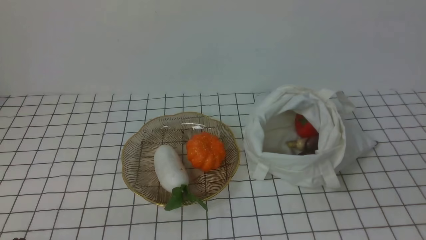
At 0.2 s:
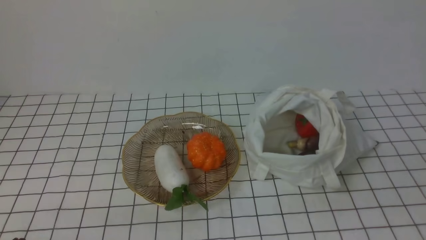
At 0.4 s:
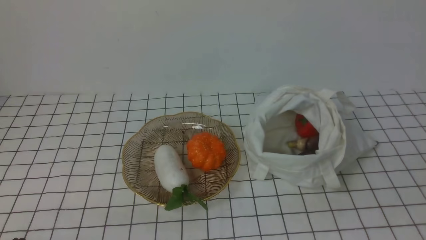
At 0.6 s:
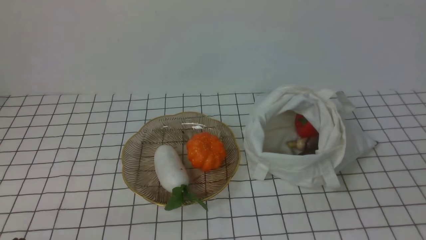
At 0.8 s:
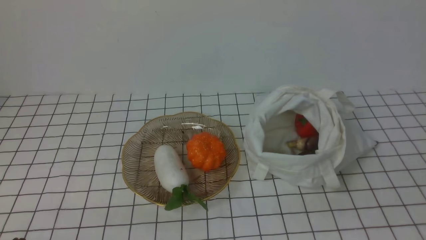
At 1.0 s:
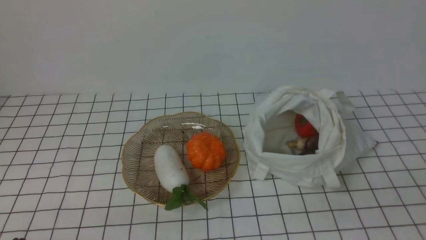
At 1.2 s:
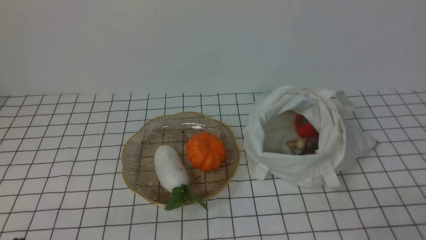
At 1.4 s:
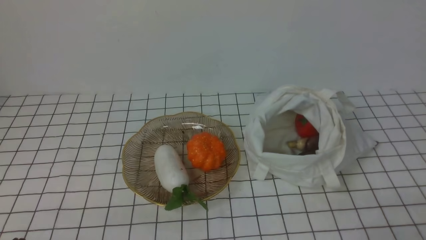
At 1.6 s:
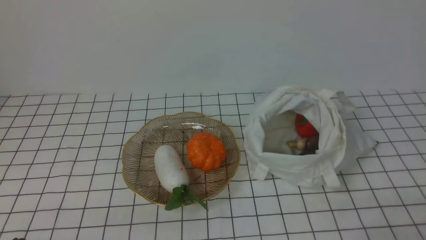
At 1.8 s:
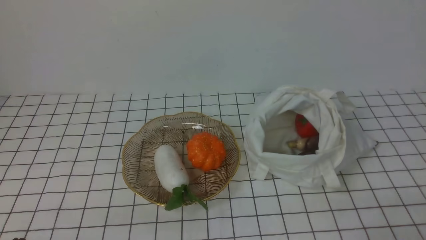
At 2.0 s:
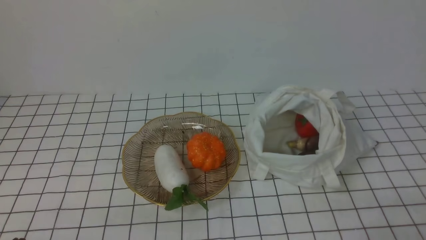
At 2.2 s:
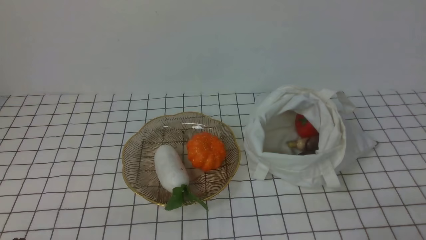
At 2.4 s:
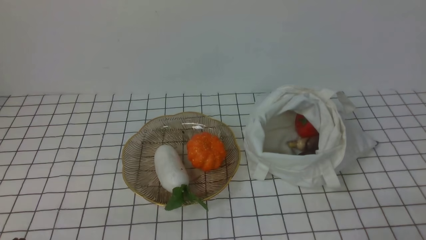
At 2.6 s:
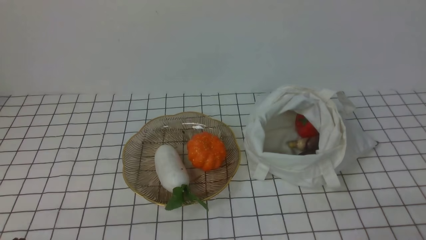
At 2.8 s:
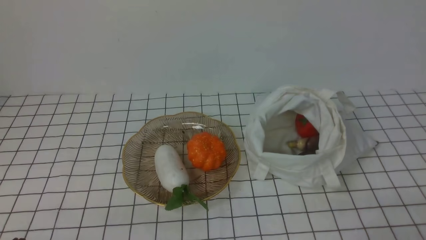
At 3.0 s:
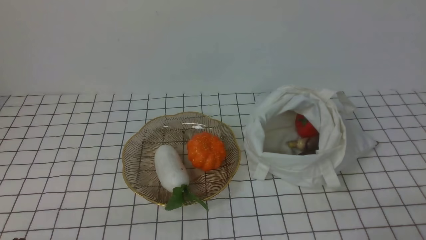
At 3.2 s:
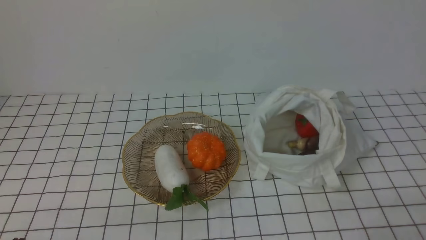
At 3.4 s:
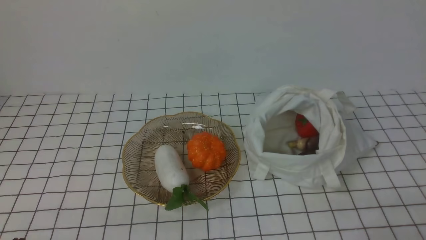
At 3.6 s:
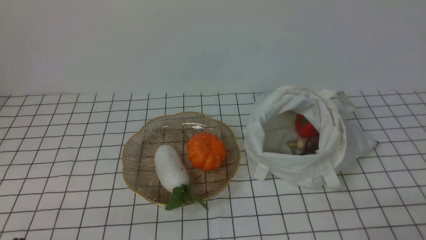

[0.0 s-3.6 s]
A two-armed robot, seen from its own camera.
Task of the whole recording: take vegetables from bag on white checkered tablecloth place on plate.
1.8 to 3.6 s: Both grippers stay about where they are.

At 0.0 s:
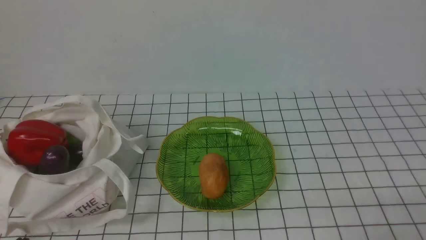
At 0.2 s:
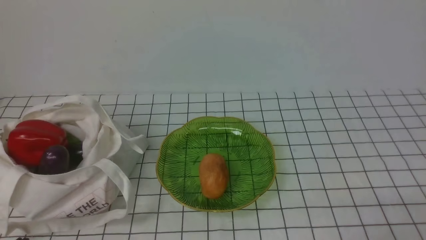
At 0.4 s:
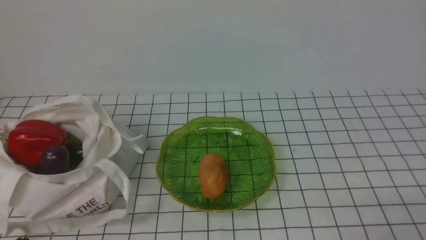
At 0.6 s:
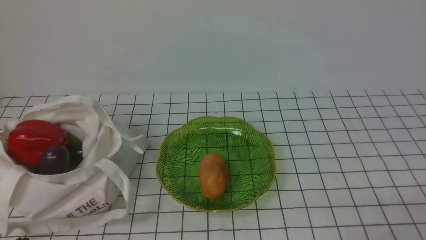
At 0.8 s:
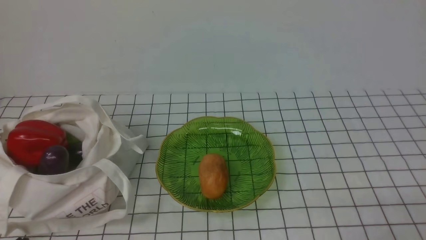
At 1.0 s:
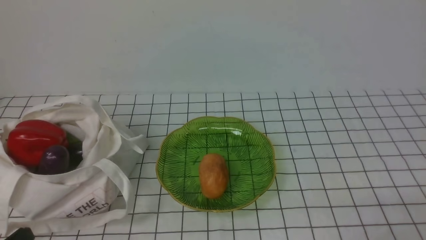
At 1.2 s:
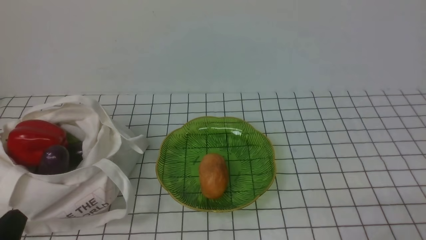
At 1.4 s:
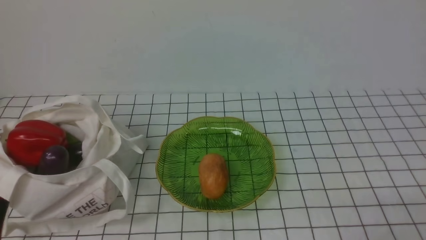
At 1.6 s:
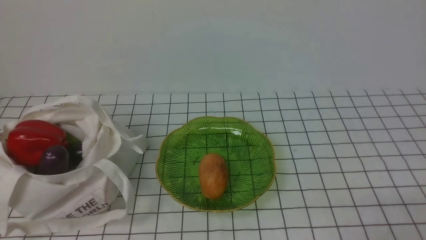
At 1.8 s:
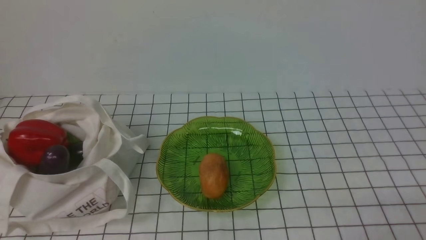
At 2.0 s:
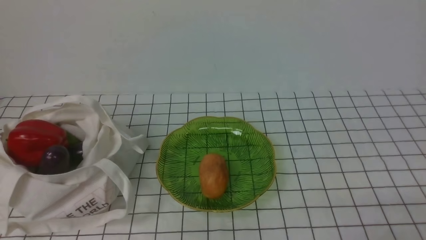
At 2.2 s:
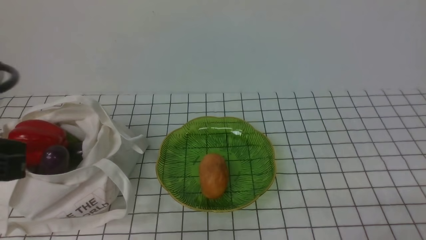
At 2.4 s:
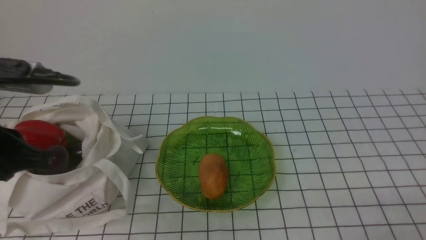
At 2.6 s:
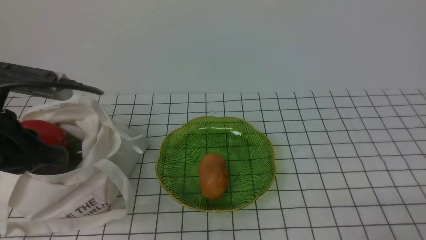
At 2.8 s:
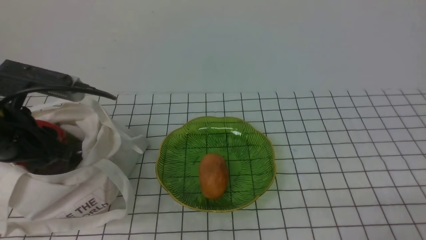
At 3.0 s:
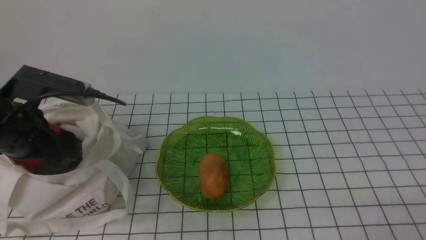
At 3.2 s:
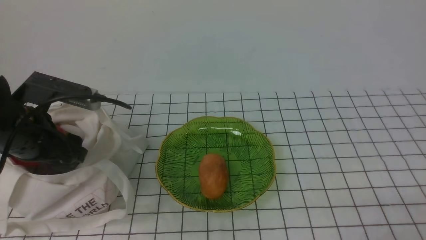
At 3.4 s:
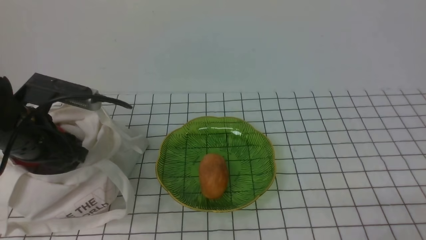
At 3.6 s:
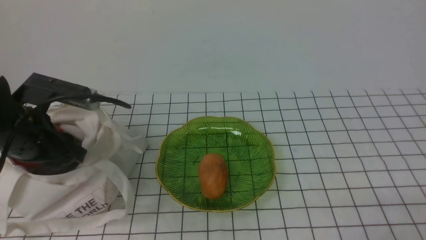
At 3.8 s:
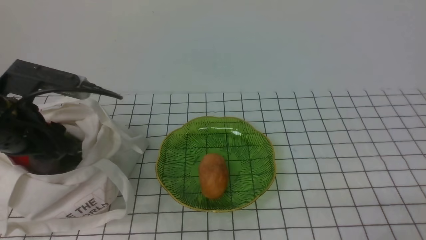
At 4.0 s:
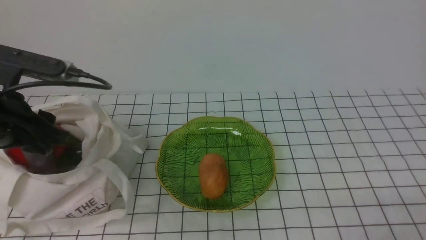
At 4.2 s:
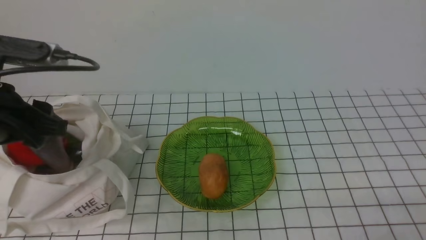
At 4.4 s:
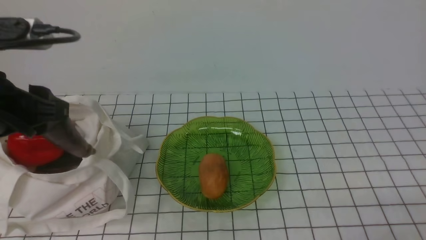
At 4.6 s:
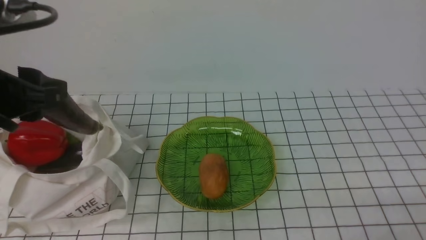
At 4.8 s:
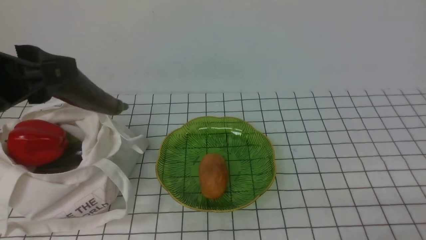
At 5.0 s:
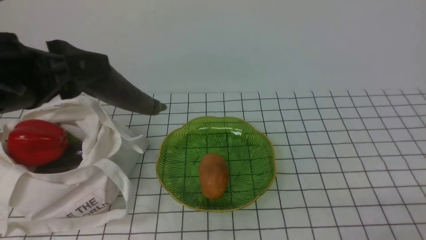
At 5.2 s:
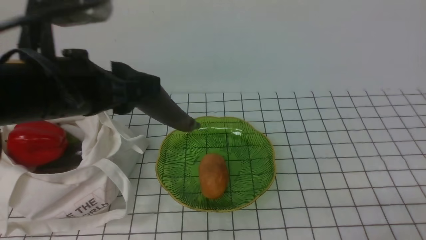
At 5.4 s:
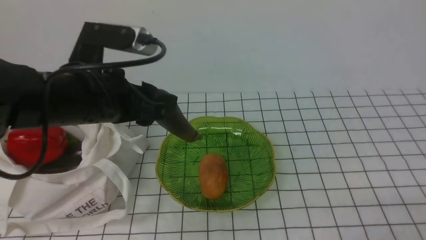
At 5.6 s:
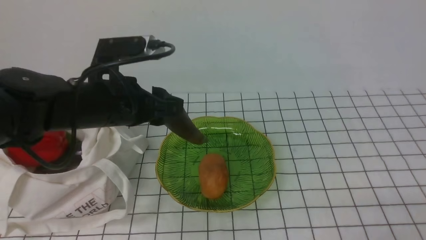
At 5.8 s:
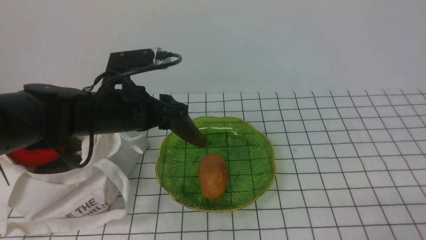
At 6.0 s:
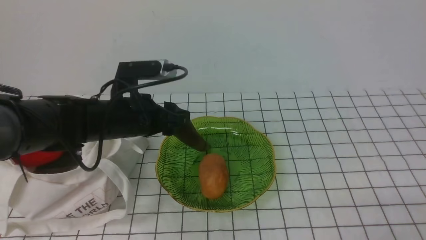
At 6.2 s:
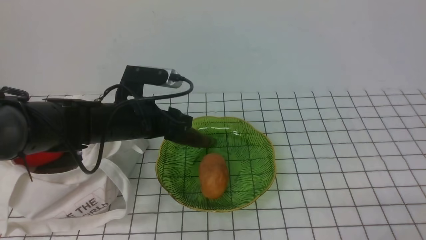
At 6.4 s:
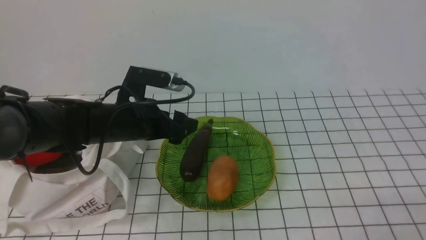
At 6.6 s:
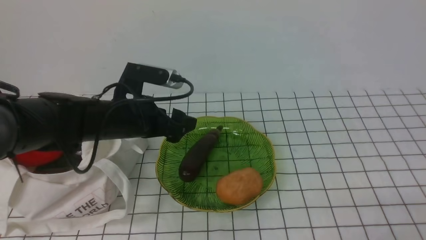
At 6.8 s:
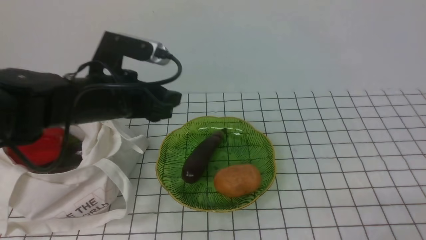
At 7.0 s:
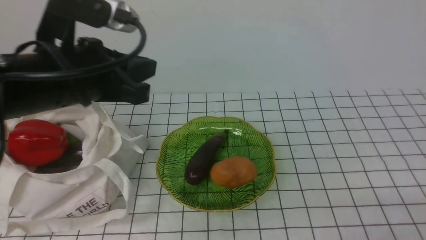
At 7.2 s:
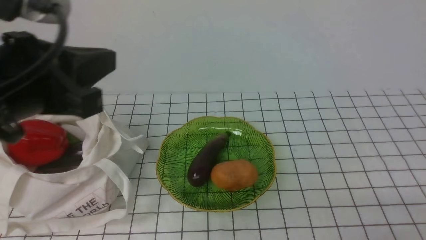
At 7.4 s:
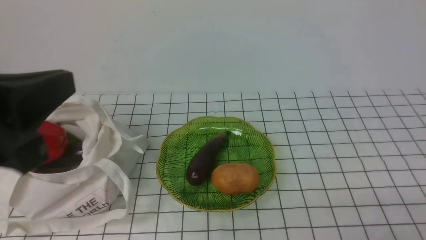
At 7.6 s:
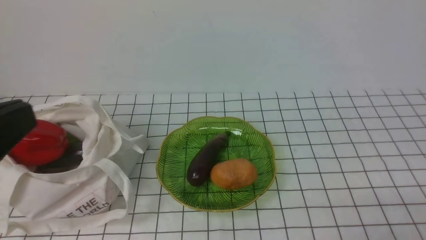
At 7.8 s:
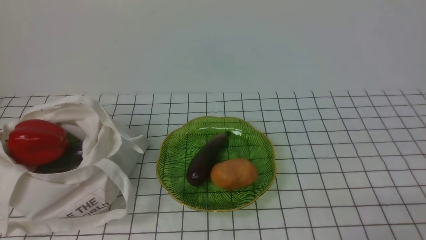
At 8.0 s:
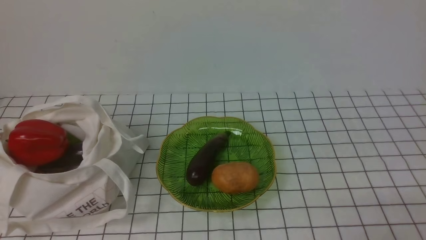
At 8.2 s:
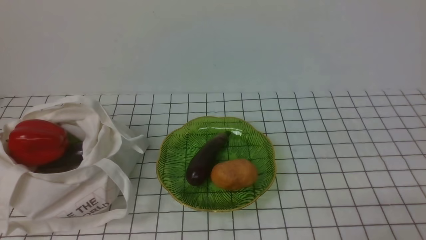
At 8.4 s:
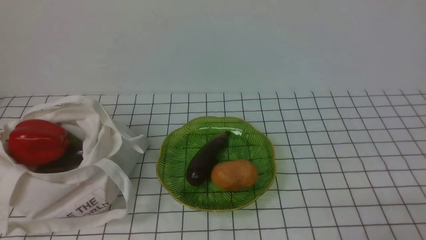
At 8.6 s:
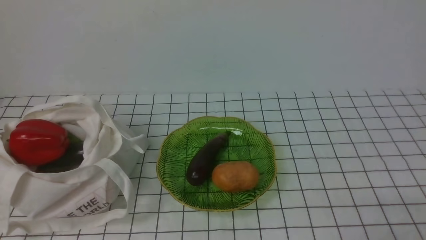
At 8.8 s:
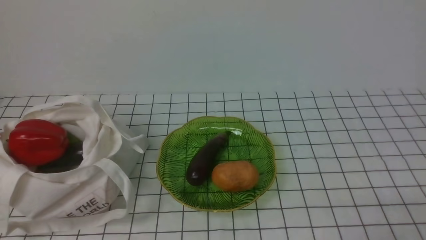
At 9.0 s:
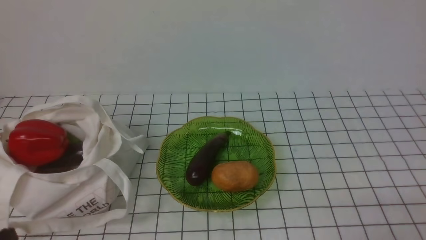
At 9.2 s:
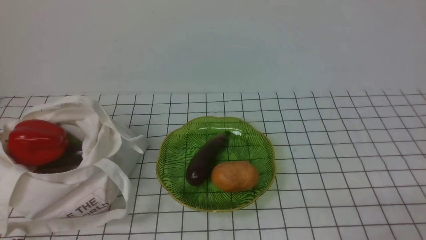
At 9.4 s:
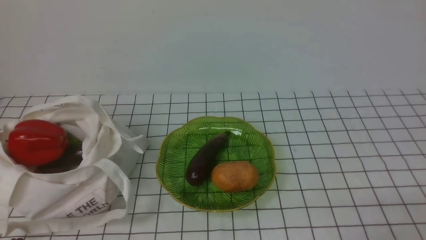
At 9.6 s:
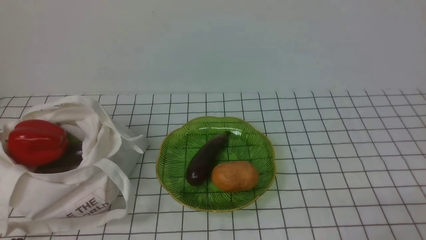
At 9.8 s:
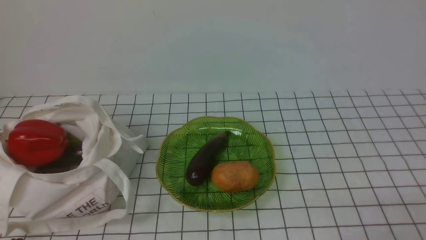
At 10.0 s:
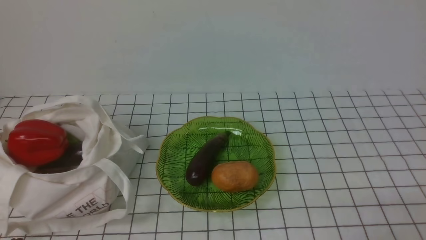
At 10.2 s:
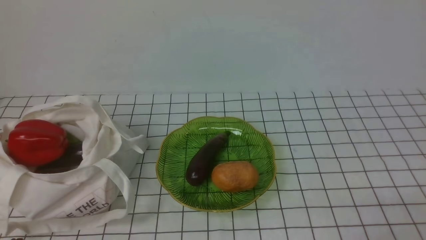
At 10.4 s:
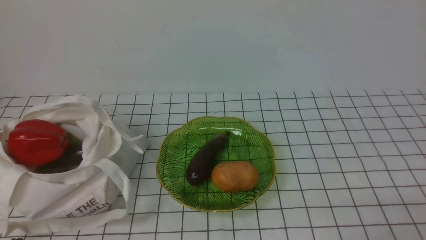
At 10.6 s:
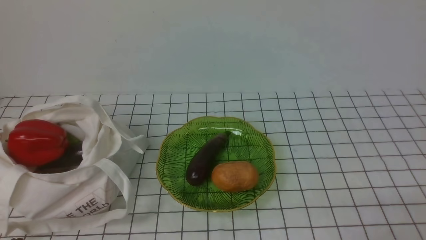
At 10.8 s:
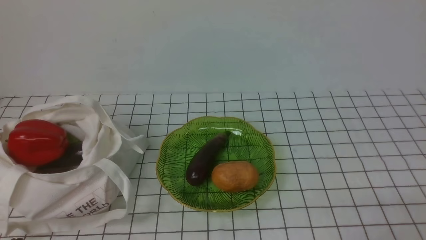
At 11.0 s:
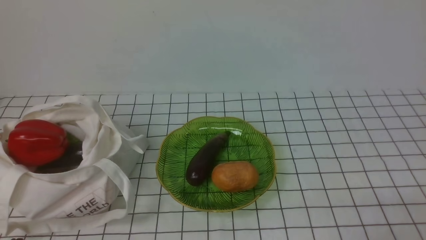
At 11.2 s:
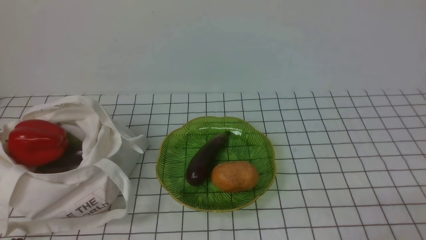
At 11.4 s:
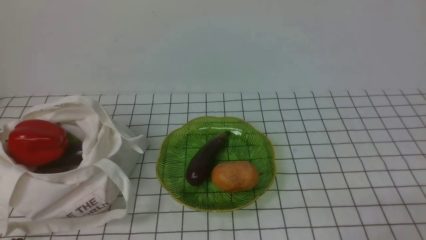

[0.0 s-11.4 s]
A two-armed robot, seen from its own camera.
Task of the whole recording: take vegetables from bag on white checkered tablecloth place on plate.
Step, 0.0 to 3.6 s: Grasp the eggplant with left gripper.
Step, 3.8 to 6.4 s: Place the eggplant on the plate with left gripper.
1.4 to 2.8 s: The left gripper travels forward and upward by some 20 cm, and opens its fingers.
4.2 to 5.6 s: The left gripper shifts some 10 cm to the right and forward.
5.6 to 7.2 s: The left gripper moves upward and backward, approximately 10 cm, and closes.
7.2 to 8.6 s: The left gripper is displaced backward by roughly 20 cm.
10.0 to 11.4 s: Both grippers stay put.
